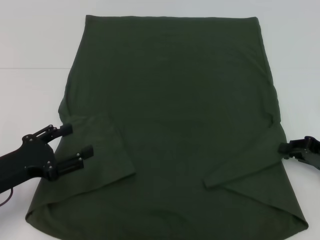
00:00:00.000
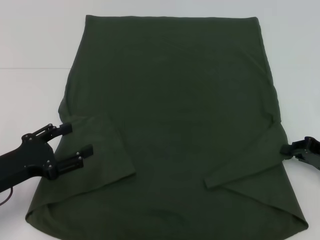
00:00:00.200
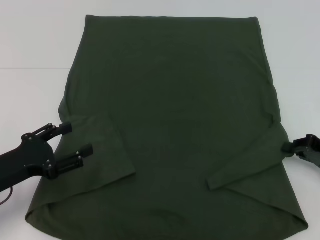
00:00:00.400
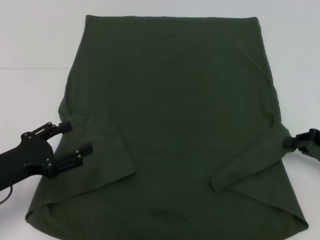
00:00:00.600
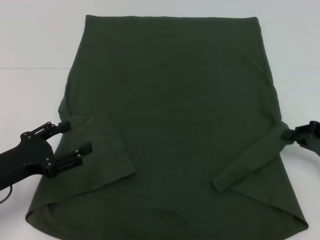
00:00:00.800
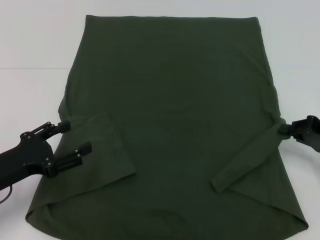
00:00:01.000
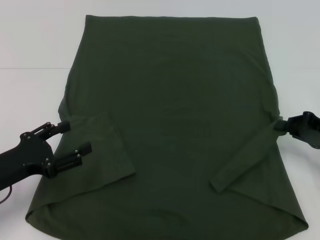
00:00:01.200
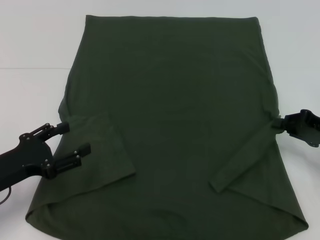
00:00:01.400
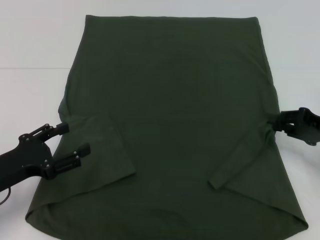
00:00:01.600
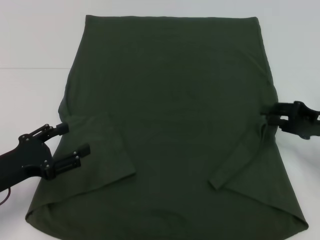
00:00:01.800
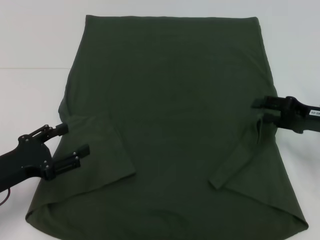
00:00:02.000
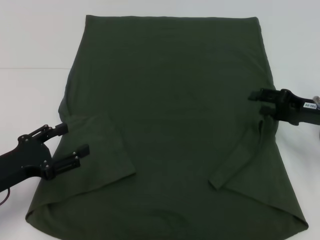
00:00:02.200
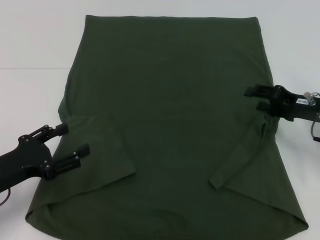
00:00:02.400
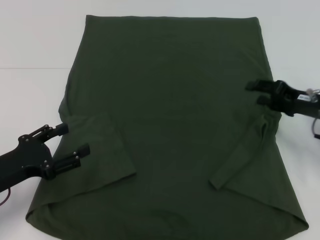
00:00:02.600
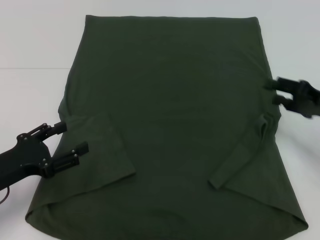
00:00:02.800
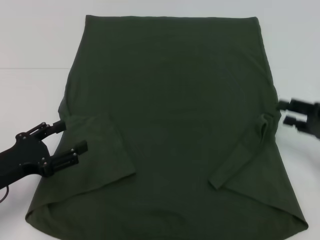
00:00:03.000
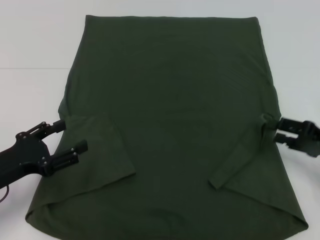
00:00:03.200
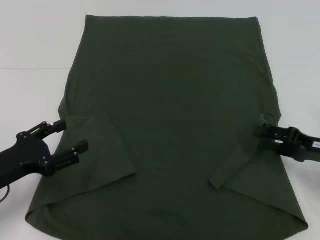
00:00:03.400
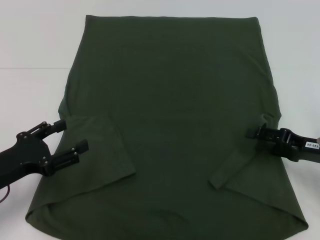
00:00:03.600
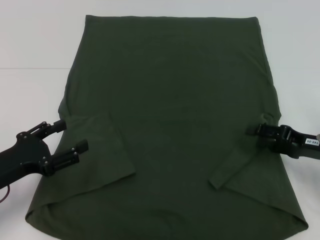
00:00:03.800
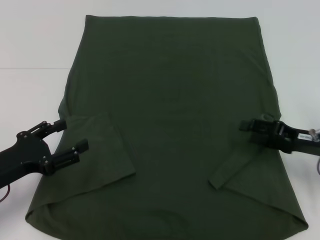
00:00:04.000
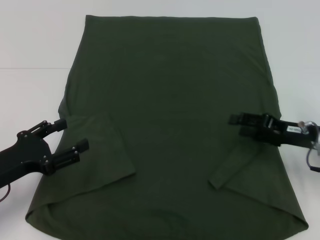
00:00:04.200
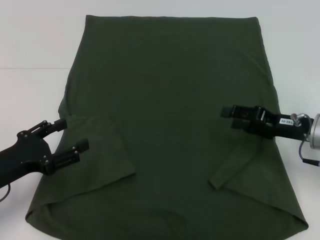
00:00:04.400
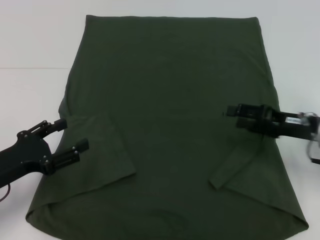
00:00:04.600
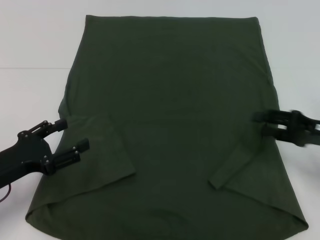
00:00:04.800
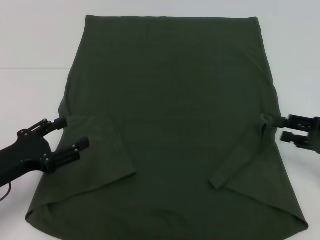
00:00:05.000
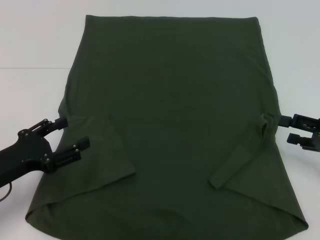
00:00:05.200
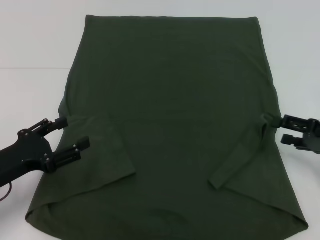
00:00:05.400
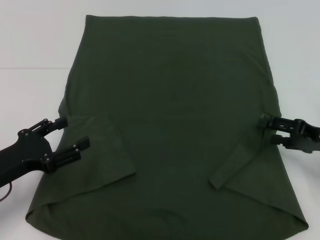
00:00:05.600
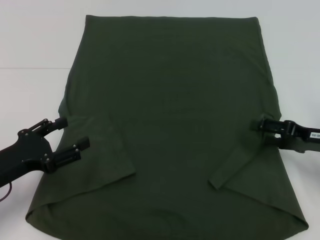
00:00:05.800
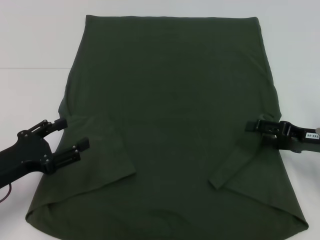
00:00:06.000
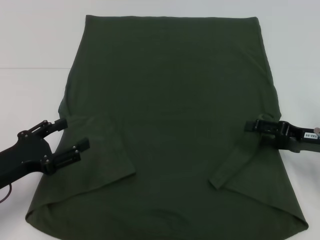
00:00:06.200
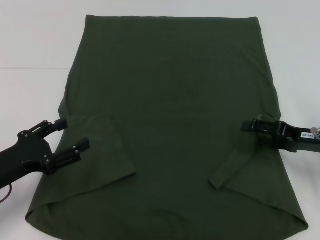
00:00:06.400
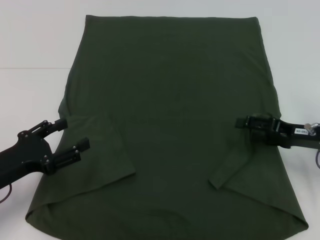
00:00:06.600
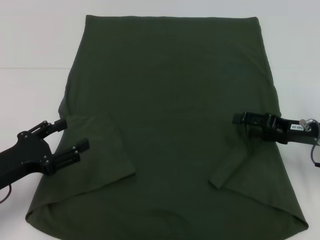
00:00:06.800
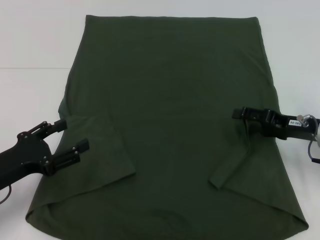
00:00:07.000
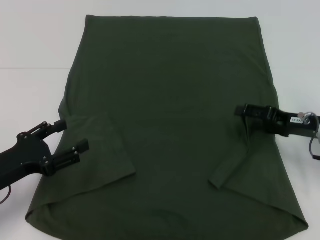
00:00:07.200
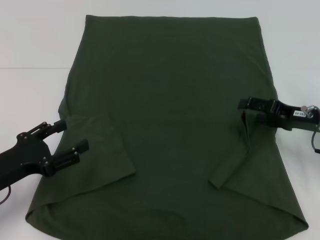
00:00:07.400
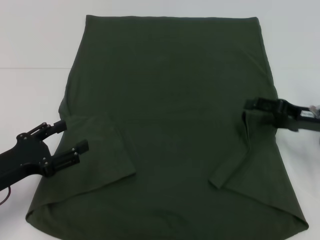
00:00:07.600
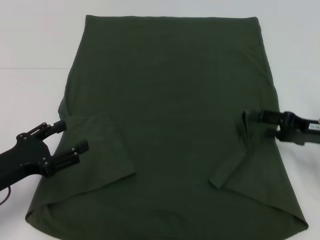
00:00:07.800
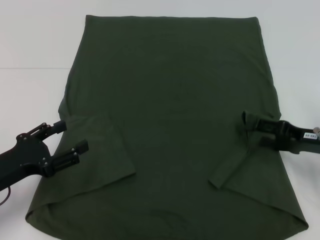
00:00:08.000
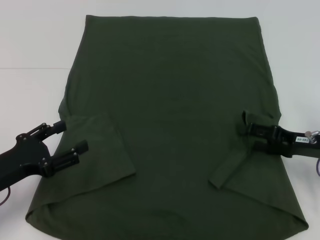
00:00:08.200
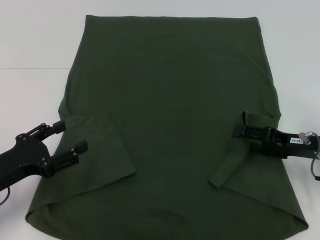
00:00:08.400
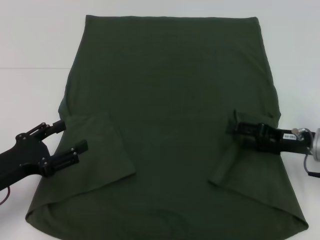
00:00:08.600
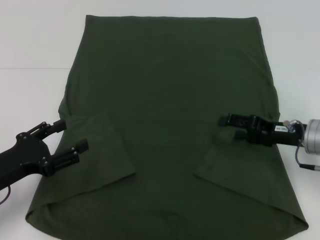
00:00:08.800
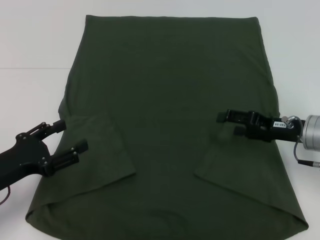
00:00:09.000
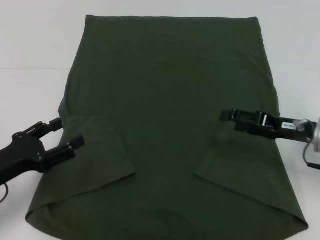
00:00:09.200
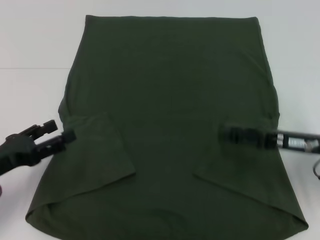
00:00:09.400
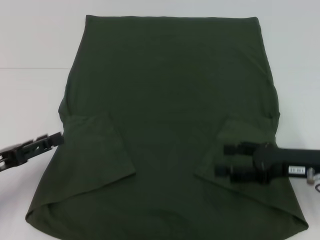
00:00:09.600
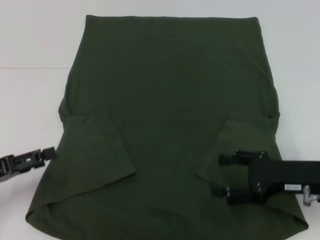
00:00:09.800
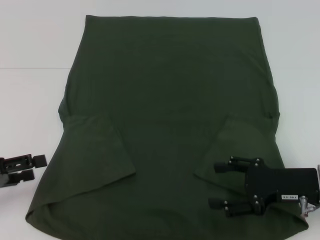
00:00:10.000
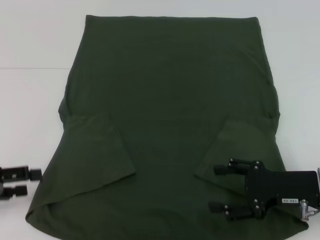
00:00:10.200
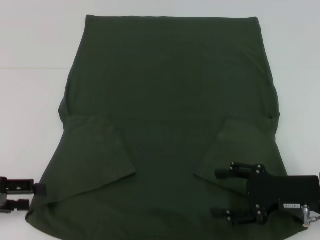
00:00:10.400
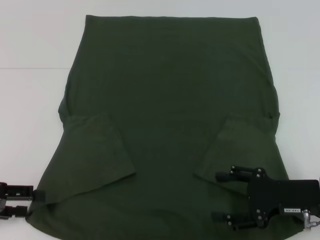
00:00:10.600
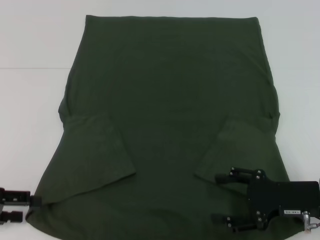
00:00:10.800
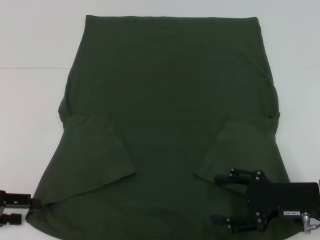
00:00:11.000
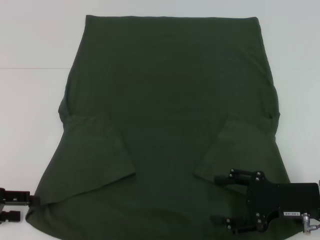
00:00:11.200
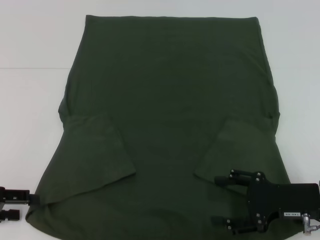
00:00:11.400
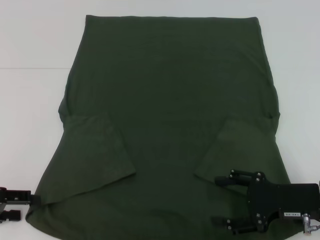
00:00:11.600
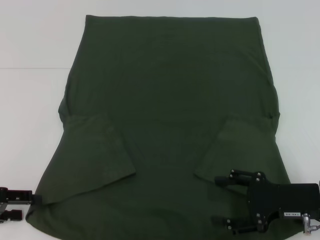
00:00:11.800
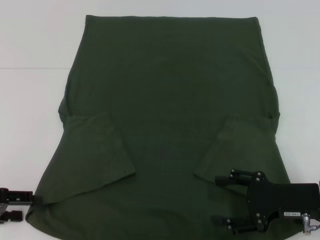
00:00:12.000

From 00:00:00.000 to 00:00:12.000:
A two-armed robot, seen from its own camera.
Step, from 00:00:00.000 to 00:00:09.400: Fold the bottom right sleeve with your right hand.
From 00:00:00.000 to 00:00:01.600: The grippers make only small movements.
From 00:00:01.600 to 00:00:03.000: The right gripper opens up.
From 00:00:03.000 to 00:00:04.400: The right gripper shifts some 10 cm to the left.
From 00:00:06.000 to 00:00:09.000: The grippers stay close to where they were, moving slightly.
From 00:00:09.000 to 00:00:10.400: The right gripper goes about 10 cm backward, while the left gripper travels to the left by approximately 5 cm.
From 00:00:10.400 to 00:00:12.000: The grippers stay close to where they were, moving slightly.

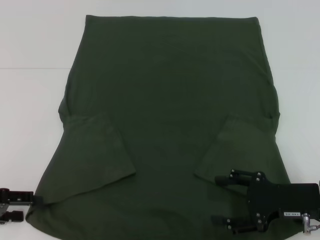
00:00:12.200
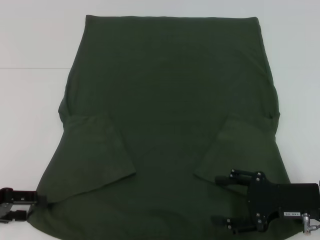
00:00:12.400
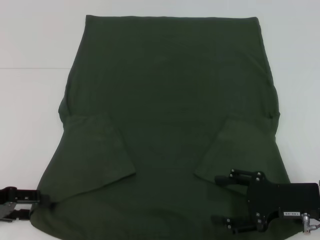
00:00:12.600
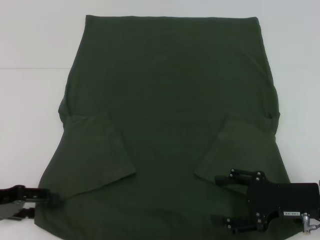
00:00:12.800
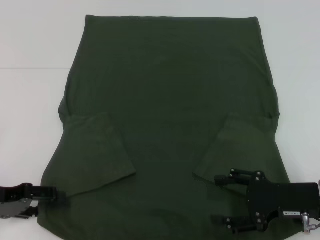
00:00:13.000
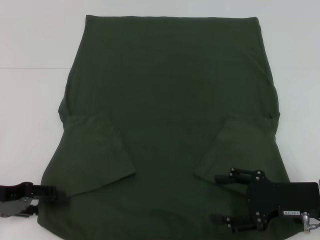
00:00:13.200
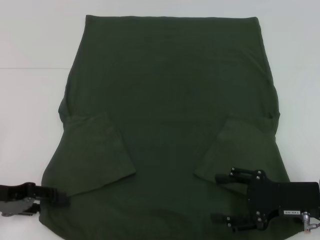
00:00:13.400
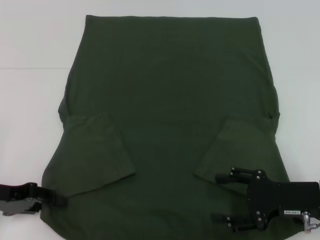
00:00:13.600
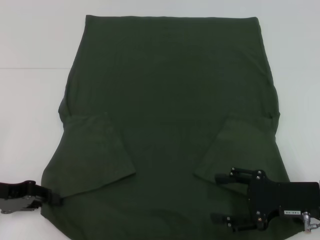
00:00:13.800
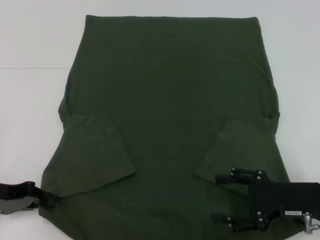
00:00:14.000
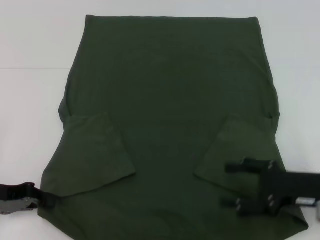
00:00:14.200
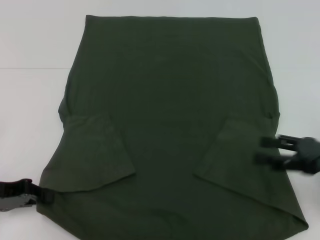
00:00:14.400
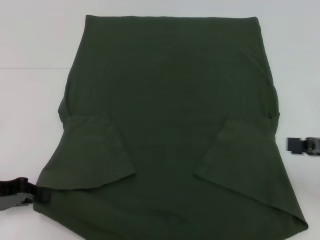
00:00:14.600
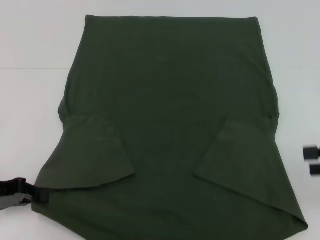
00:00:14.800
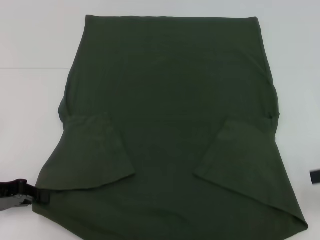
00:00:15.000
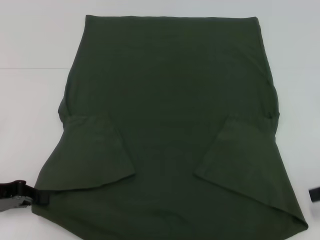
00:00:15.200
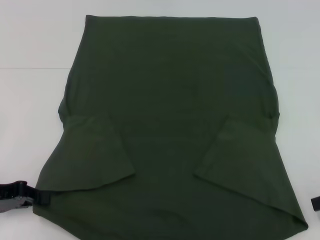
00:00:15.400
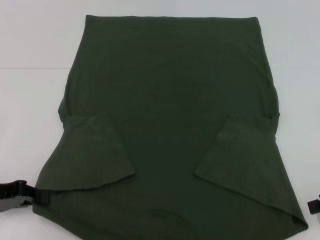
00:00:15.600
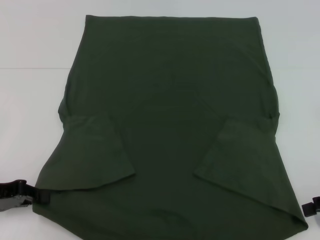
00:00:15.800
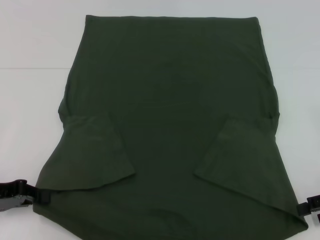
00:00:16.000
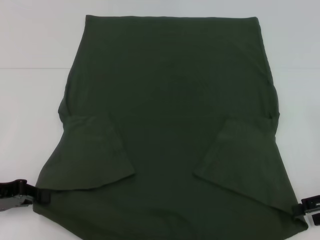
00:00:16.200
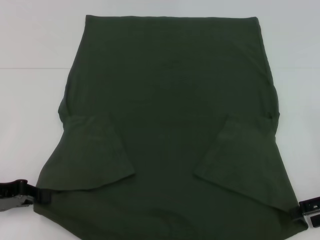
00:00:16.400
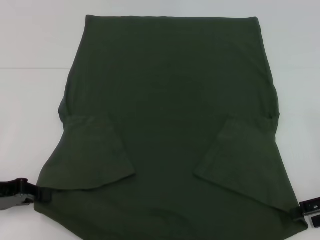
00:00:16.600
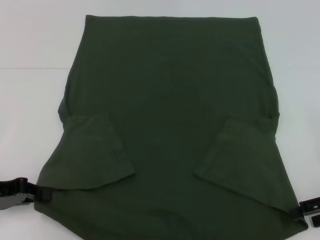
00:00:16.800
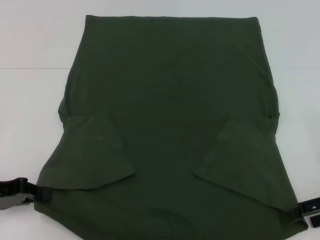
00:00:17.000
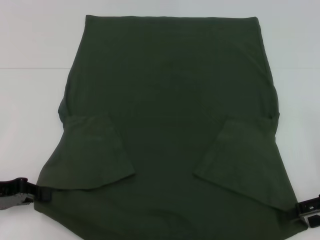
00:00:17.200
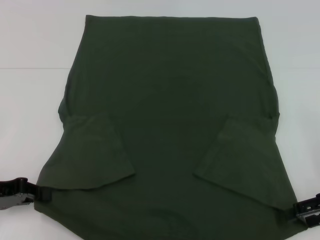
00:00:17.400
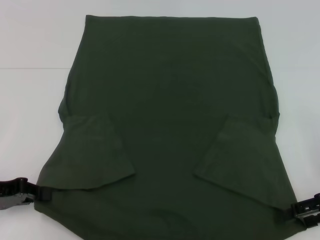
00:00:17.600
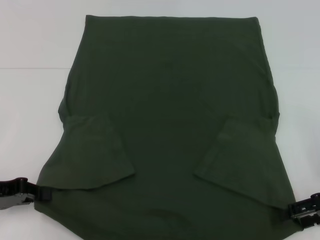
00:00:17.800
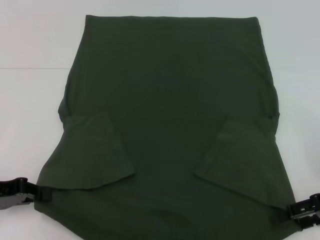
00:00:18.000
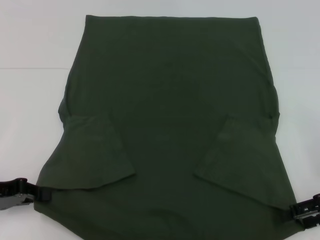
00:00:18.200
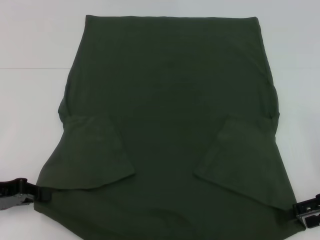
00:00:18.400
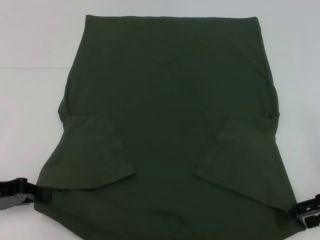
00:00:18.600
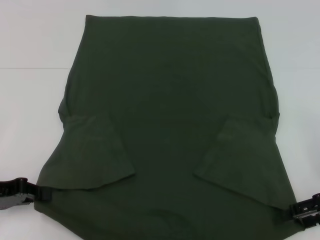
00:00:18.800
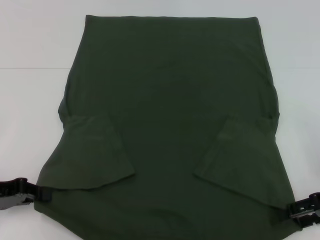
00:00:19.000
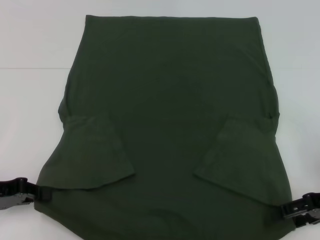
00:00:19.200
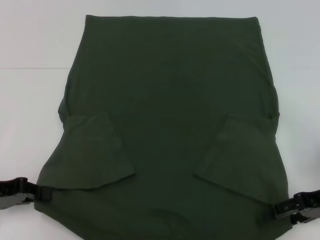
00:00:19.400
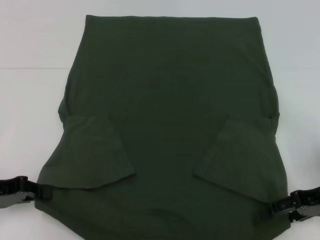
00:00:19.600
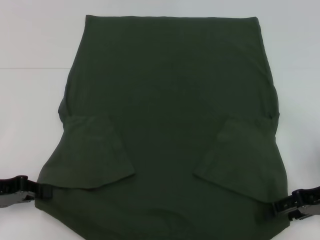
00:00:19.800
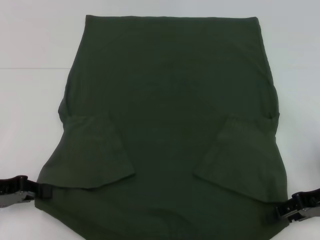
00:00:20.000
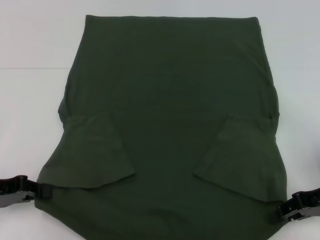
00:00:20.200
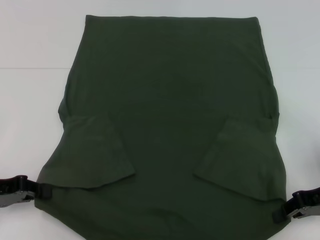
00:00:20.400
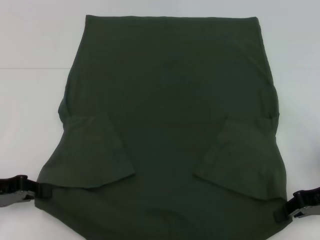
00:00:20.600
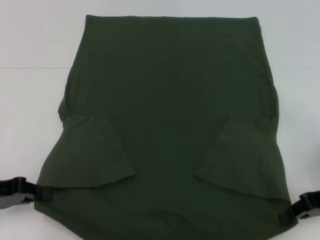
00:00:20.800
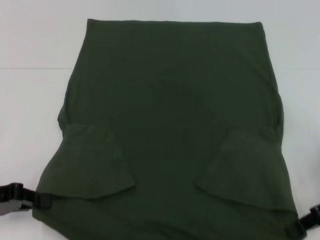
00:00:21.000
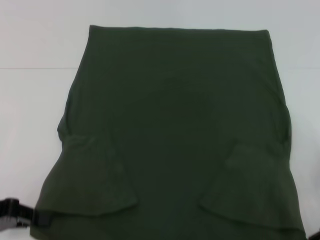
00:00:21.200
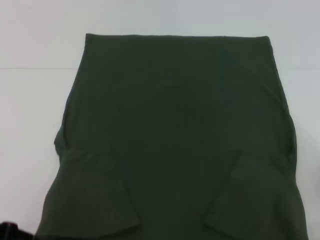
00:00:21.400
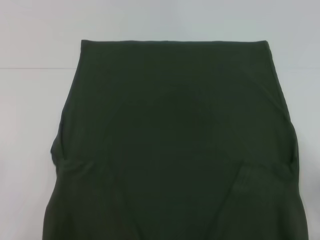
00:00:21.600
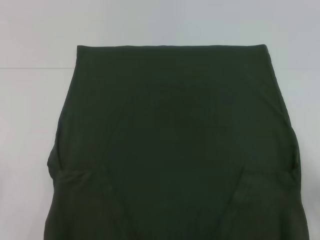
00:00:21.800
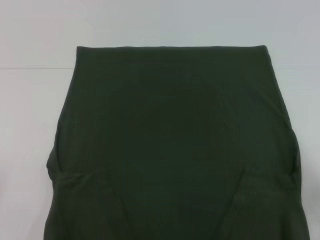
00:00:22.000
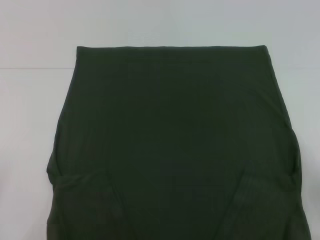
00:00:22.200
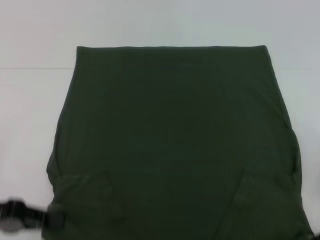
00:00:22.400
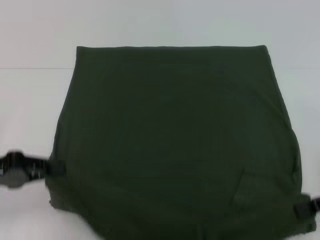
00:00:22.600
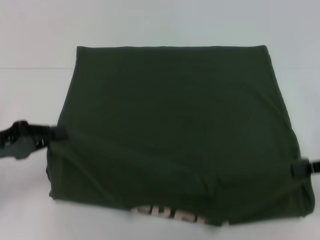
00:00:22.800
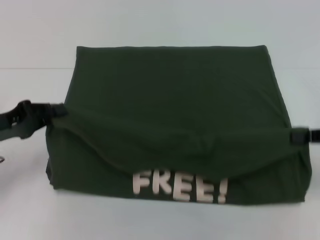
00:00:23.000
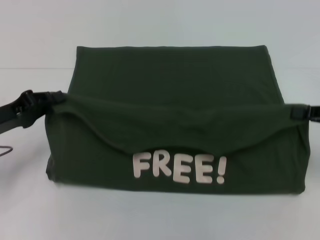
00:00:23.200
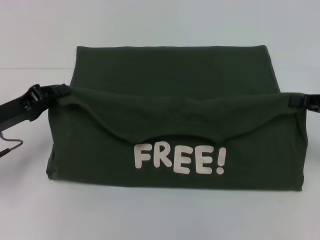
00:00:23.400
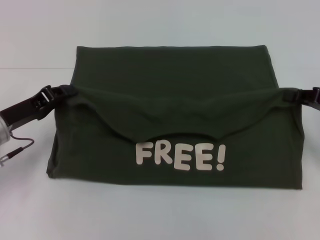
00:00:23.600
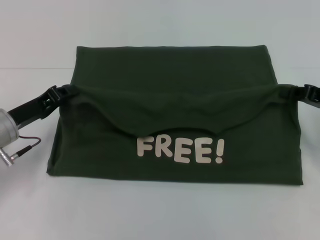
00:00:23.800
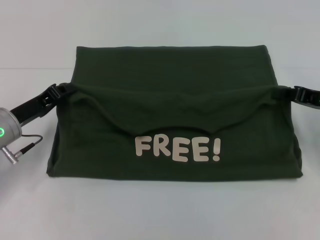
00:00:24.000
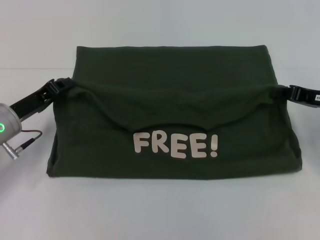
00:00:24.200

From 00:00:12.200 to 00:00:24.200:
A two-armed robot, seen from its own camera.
Step, from 00:00:12.200 to 00:00:14.200: Grab the bottom left corner with your left hand.
Step, from 00:00:14.400 to 00:00:20.400: Grab the bottom right corner with your right hand.
From 00:00:12.200 to 00:00:13.800: The left gripper closes its fingers.
From 00:00:13.800 to 00:00:15.200: The left gripper closes up, while the right gripper is displaced to the right and upward by some 15 cm.
From 00:00:15.200 to 00:00:16.600: The grippers stay close to where they were, moving slightly.
From 00:00:18.200 to 00:00:19.800: The grippers stay close to where they were, moving slightly.
From 00:00:19.800 to 00:00:21.200: The right gripper closes up.
From 00:00:21.200 to 00:00:22.600: The grippers make only small movements.
From 00:00:22.600 to 00:00:24.200: The left gripper travels forward and to the right by some 10 cm. Meanwhile the right gripper shifts approximately 10 cm forward.
